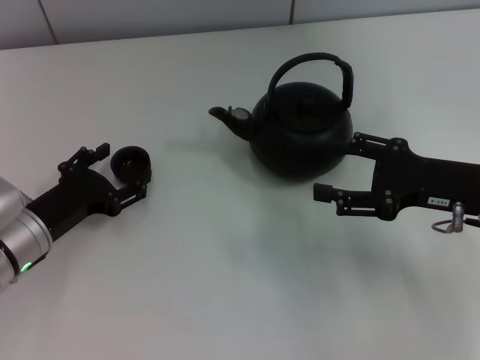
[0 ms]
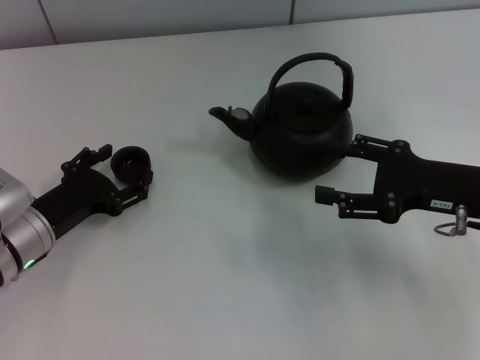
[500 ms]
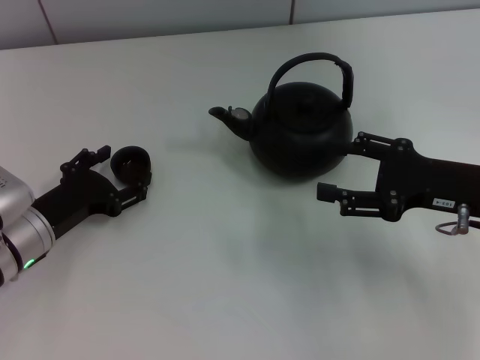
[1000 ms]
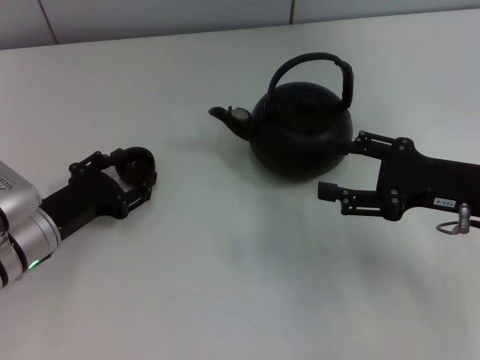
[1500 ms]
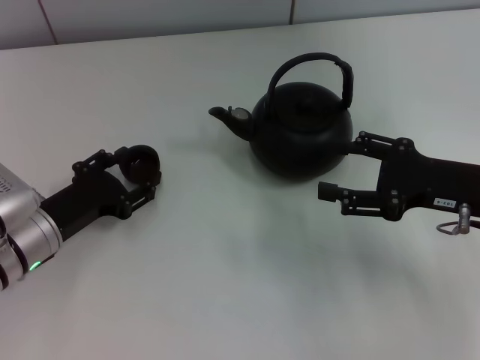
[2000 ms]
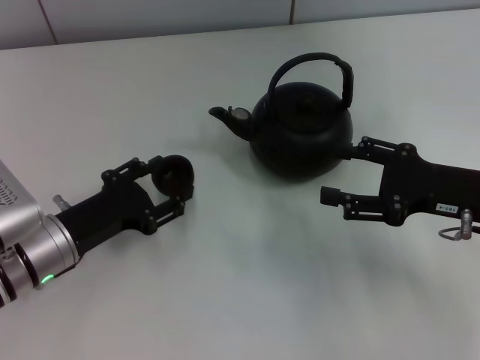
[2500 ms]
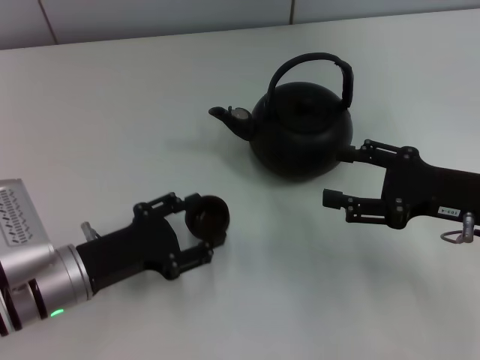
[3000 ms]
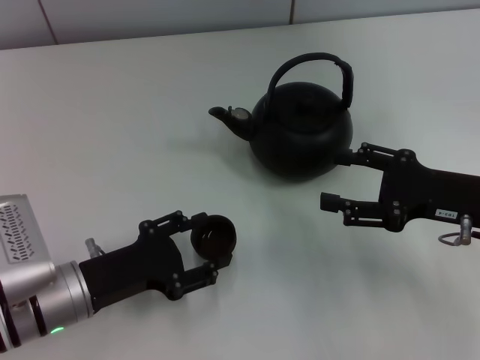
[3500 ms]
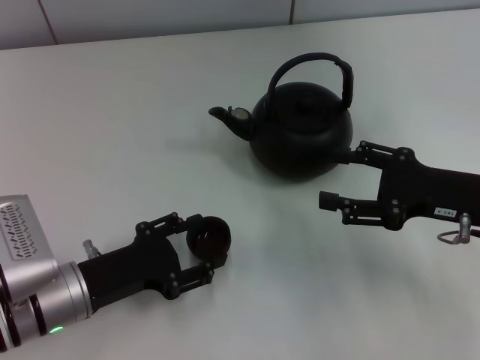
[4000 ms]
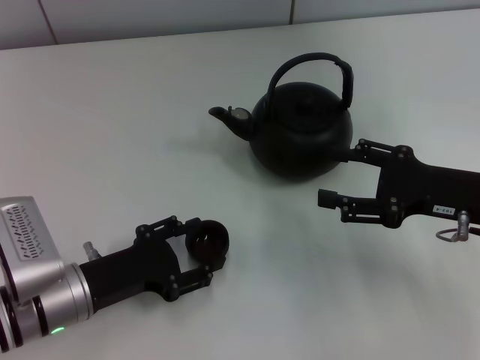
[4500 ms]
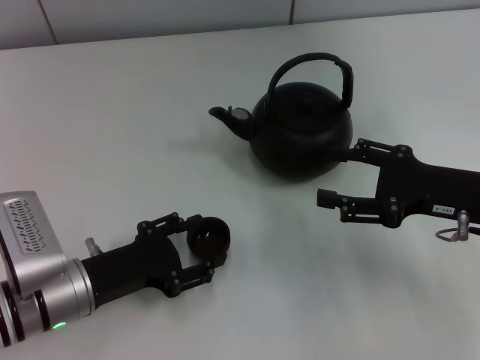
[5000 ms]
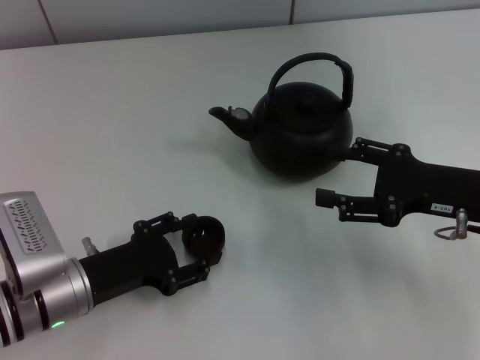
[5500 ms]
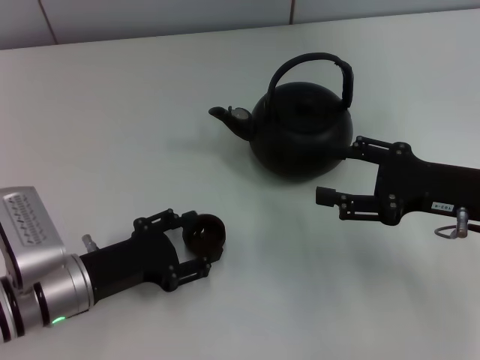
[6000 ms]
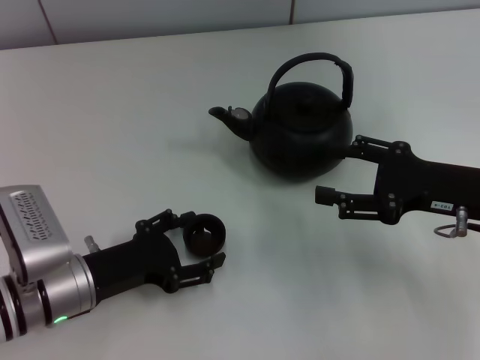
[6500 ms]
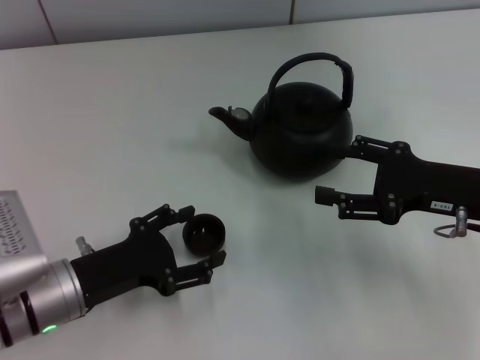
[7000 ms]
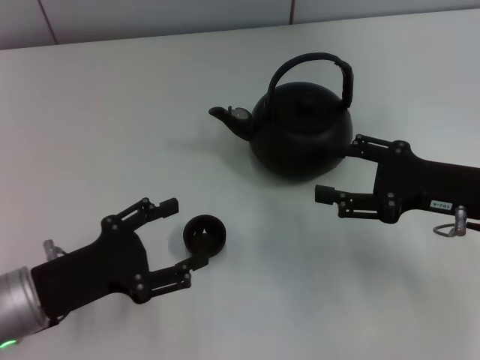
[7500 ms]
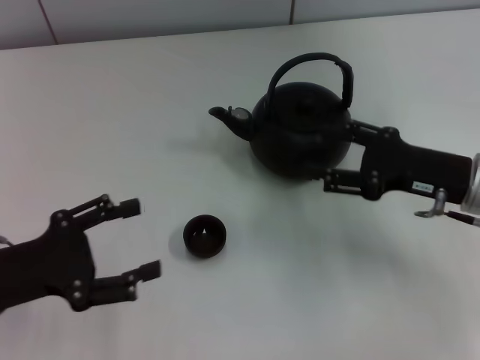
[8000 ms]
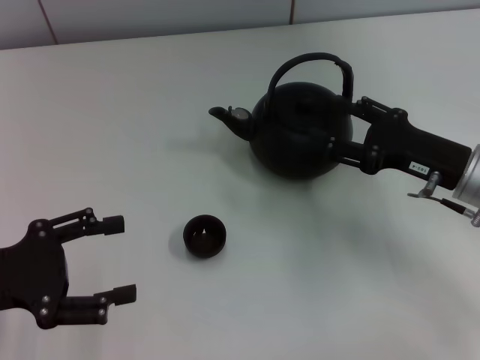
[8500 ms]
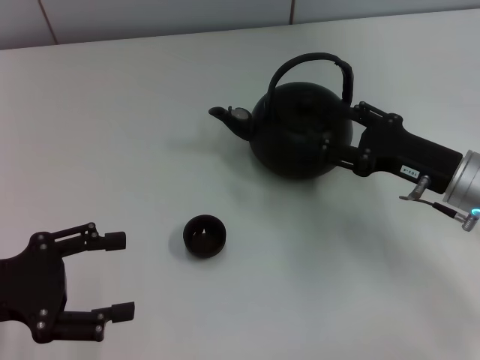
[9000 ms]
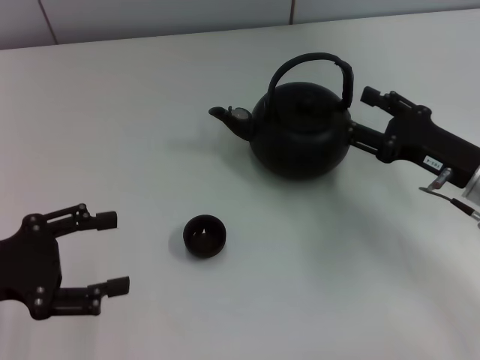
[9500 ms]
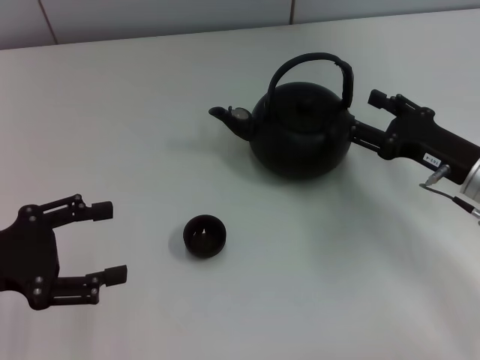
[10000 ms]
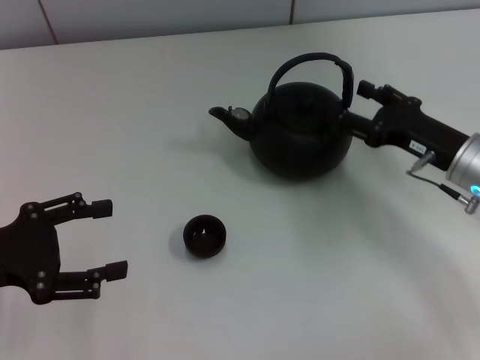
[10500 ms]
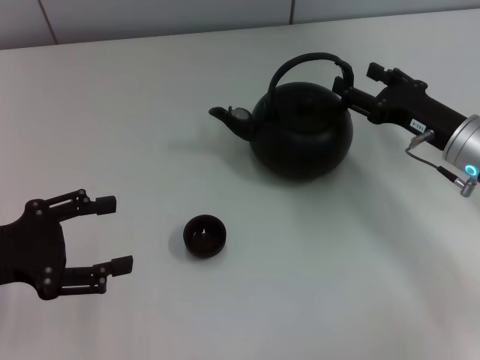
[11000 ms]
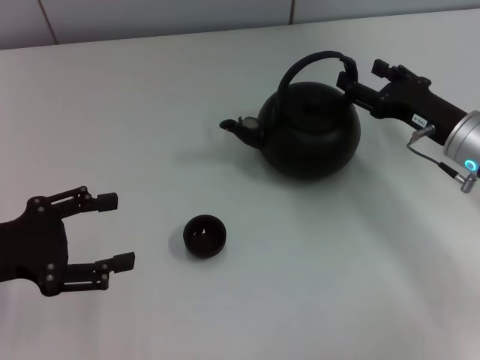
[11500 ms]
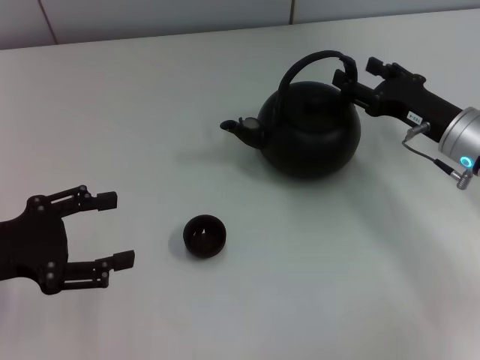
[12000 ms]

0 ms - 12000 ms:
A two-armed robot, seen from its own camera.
Task of the whole recording: Grasp the handle of the teapot with one hand and pour tea into the teacup.
Step, 0 ms - 2000 ms: Pick up the teacup with the left gripper.
Step, 2500 ms - 6500 ms: Place the teacup in the center of view with the left gripper.
0 ms - 2000 ms: The left gripper closes its fingers.
2000 ms - 4000 ms: The left gripper moves backward, about 5 cm.
4000 ms - 6000 ms: Both grippers stay put.
6000 ms - 8000 ms: The left gripper goes roughly 10 cm to the left and upward, and opens its fingers.
10000 ms - 12000 ms: There are only small adjustments of the grippers.

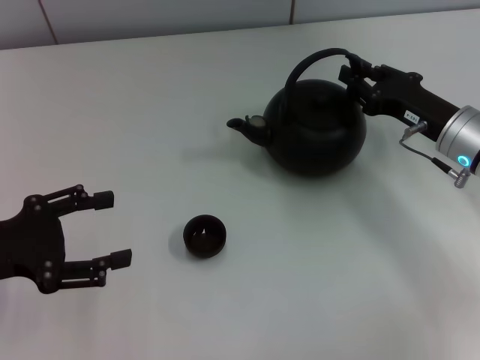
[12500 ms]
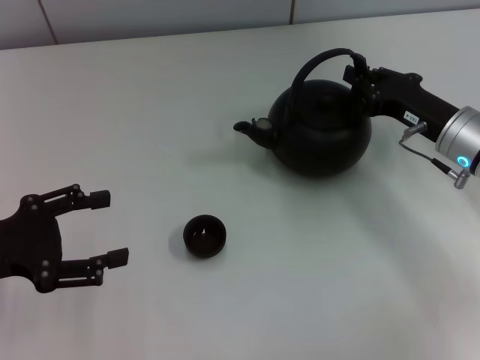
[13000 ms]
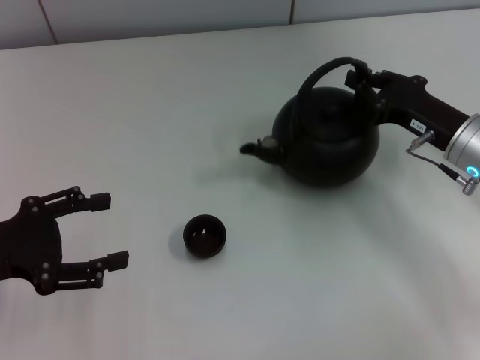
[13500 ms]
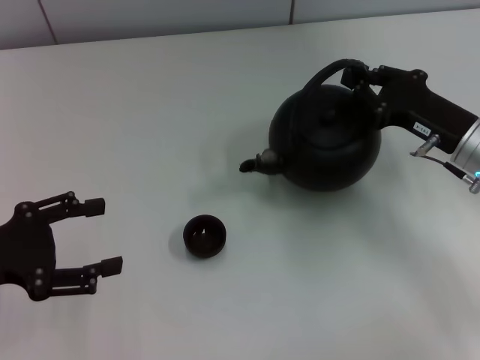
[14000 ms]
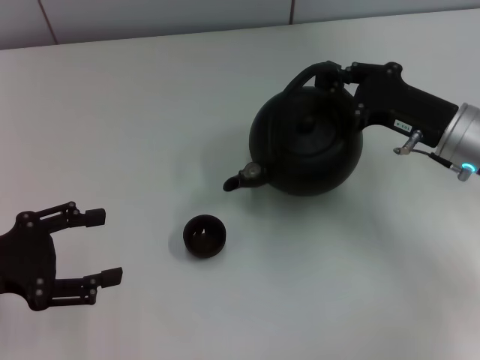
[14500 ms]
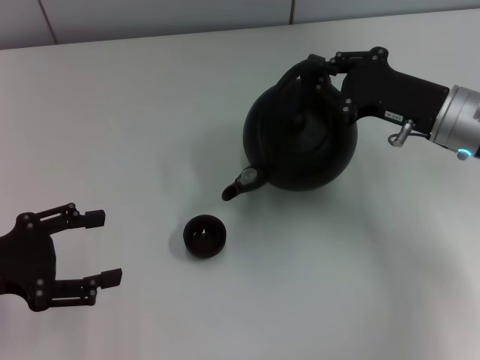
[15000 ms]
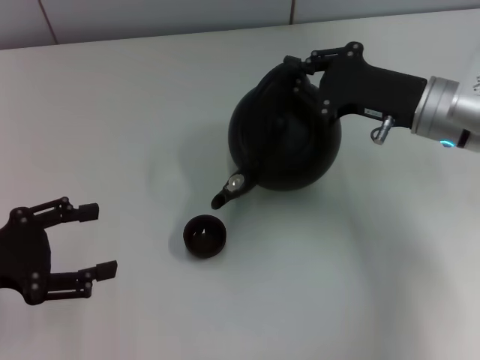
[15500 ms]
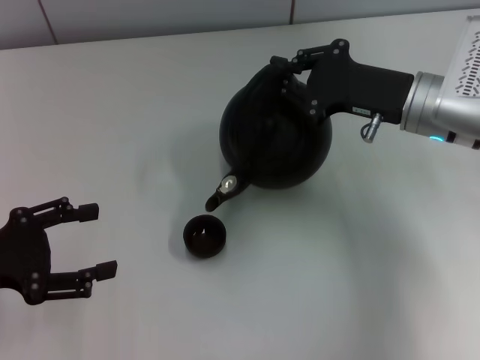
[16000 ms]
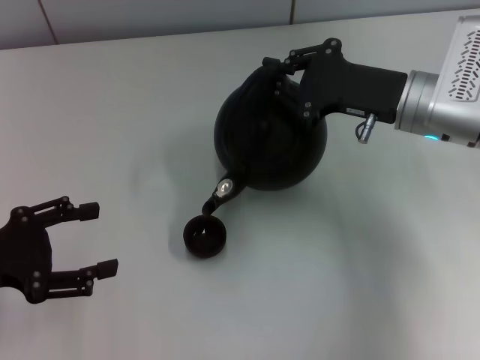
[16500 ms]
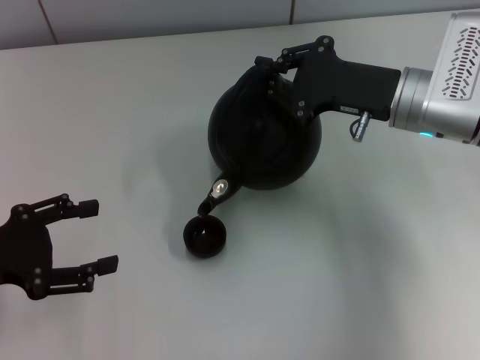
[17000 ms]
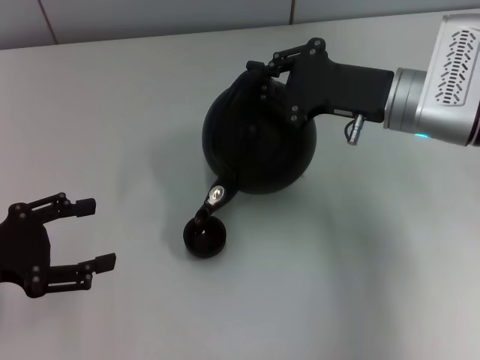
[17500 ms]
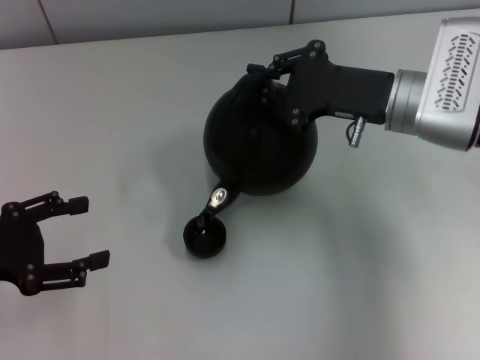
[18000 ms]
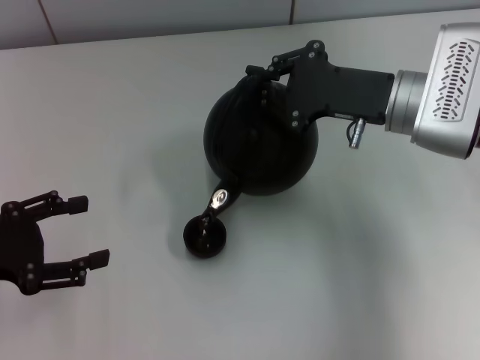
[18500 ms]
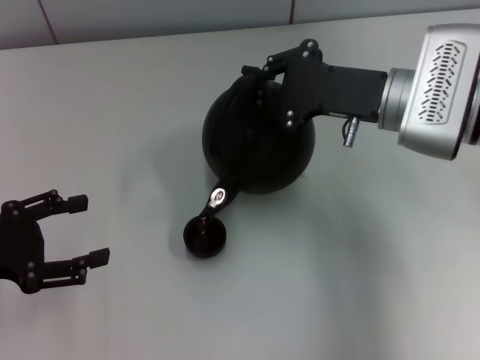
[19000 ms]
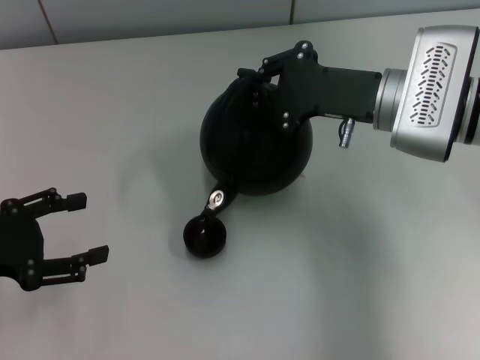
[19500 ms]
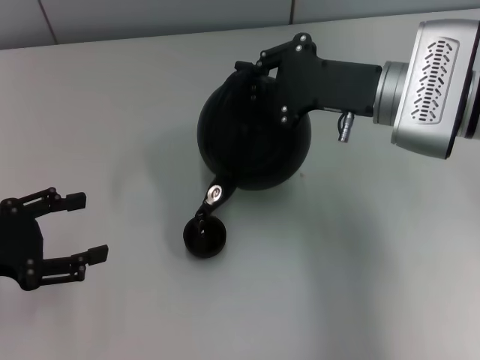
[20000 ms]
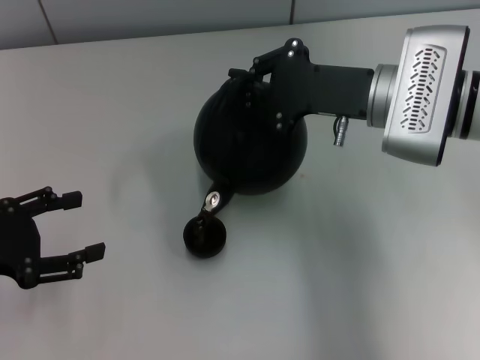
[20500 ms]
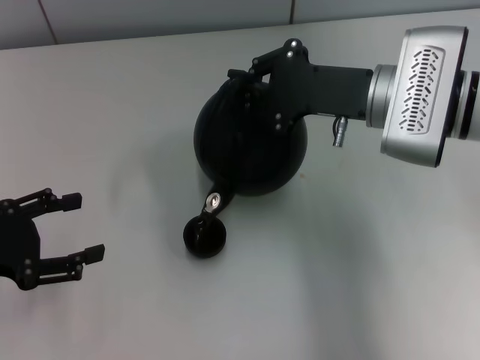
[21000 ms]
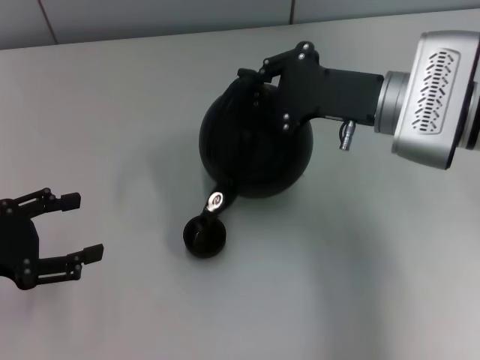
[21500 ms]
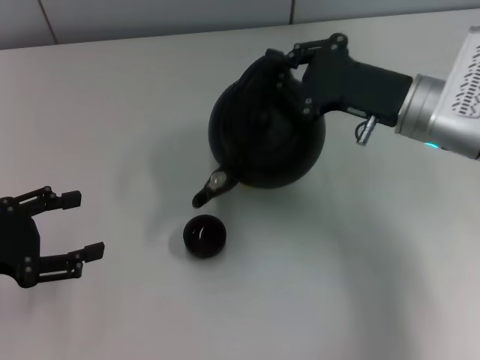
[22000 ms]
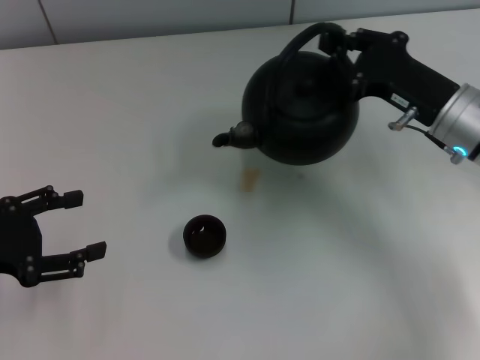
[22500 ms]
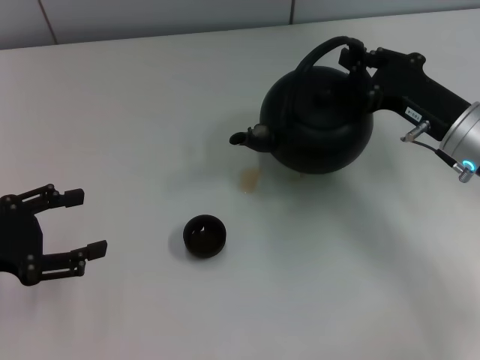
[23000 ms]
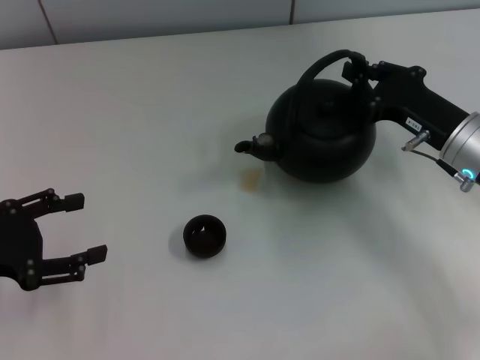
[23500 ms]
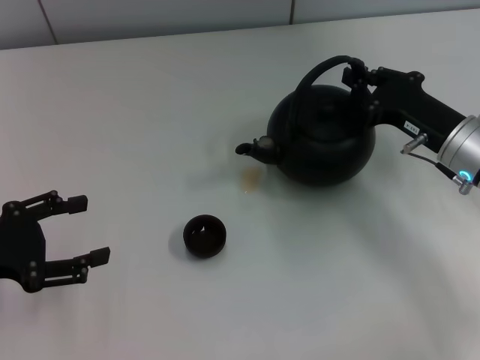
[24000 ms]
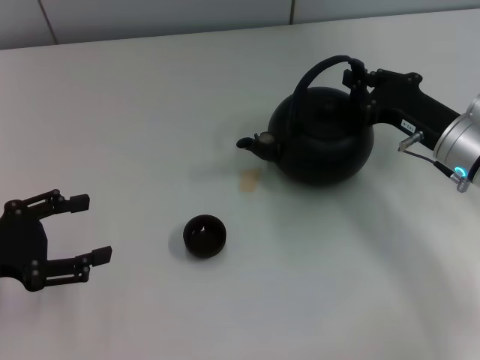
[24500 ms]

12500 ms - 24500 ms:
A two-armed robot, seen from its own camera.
Task of the whole recording: Grasp the handle of the teapot with one hand and pour tea into the teacup.
12500 ms - 14500 ms: The right gripper closes up.
14500 ms - 16500 ms: The right gripper shifts by roughly 5 cm.
16500 ms - 20500 ms: The grippers move only a little.
20500 ms - 22500 ms: The right gripper is displaced to the right by about 5 cm.
22500 ms - 24500 ms: The grippers move only a little.

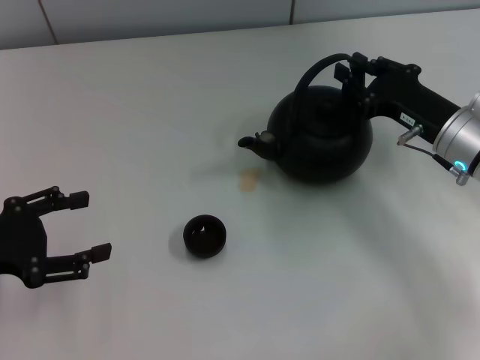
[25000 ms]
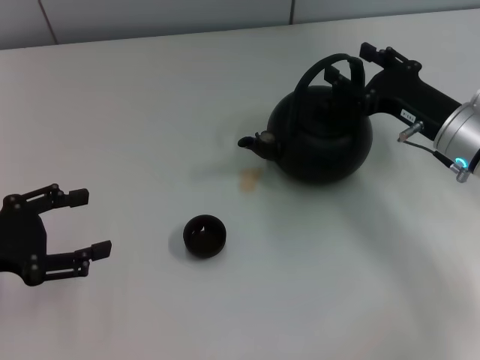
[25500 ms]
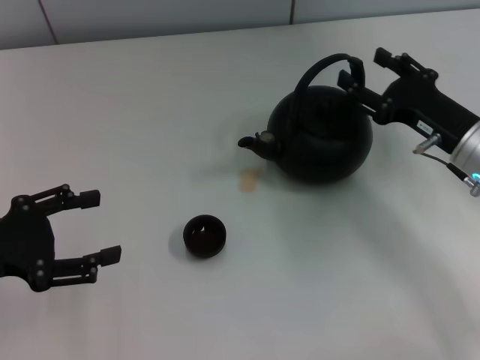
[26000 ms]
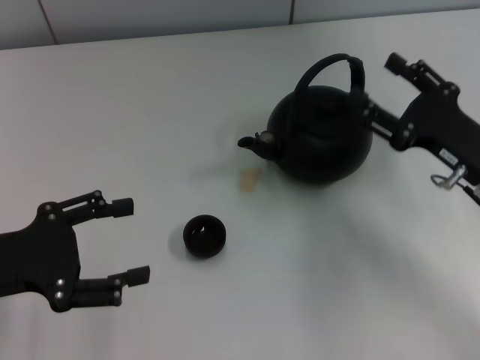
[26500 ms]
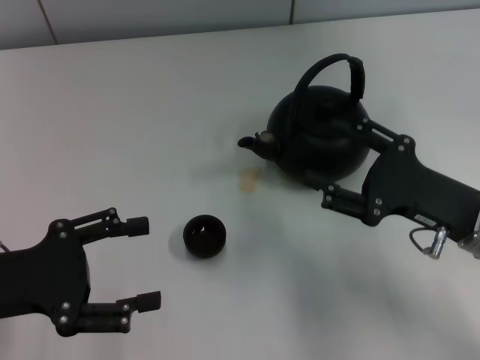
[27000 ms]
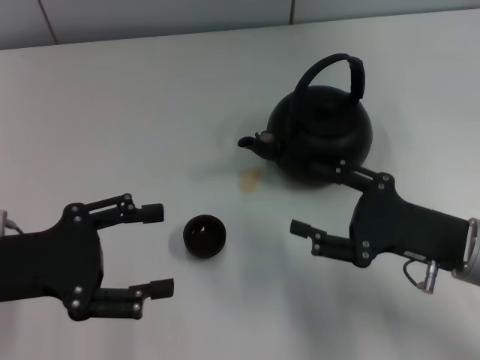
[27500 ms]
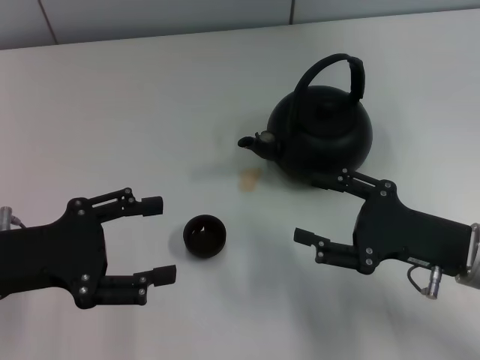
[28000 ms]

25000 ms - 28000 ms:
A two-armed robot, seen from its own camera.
Task of the whole recording: Grasp the handle of the teapot with one hand and pour tea into the teacup.
25000 ms - 26500 ms: The right gripper goes about 5 cm backward, and opens its fingers.
26500 ms - 28000 ms: The right gripper moves about 5 cm.
